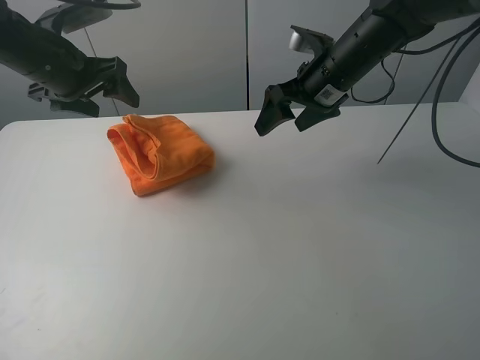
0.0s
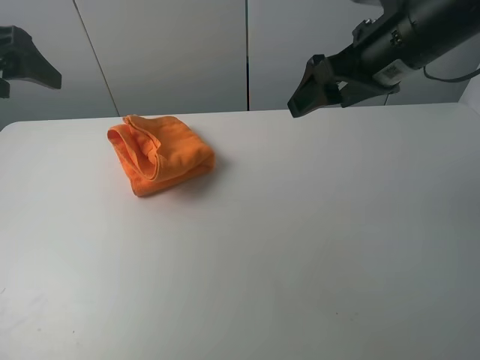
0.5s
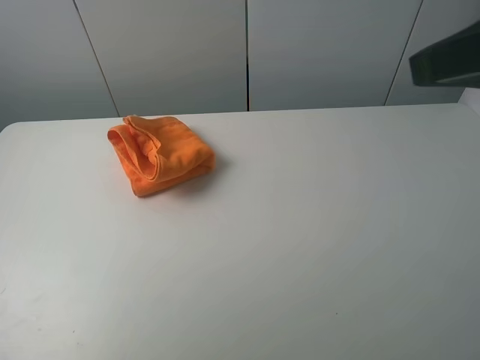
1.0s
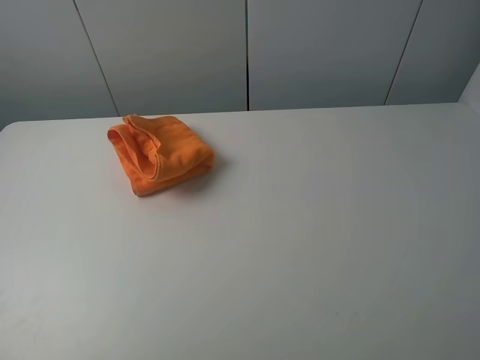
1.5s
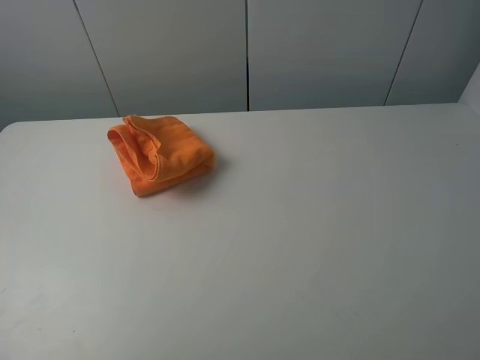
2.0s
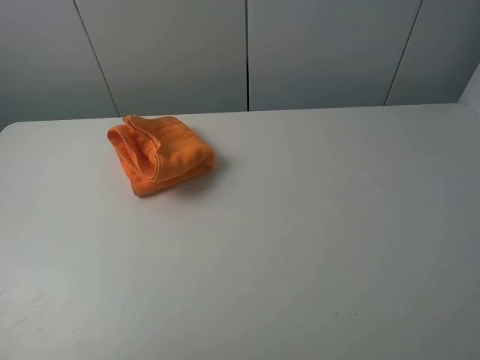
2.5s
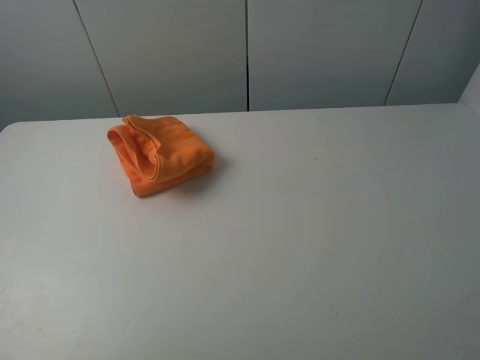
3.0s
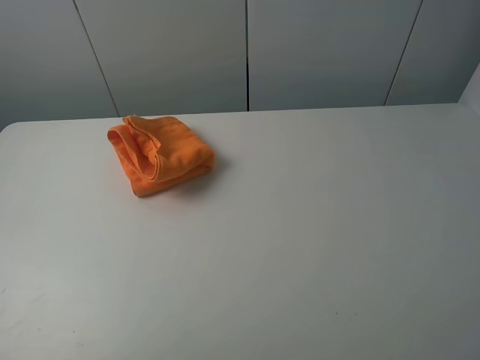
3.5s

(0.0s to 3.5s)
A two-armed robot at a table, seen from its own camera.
Task of the whole recording: fold the towels on the table.
0.0s - 2.0s: The right gripper heads backward and to the right, covering approximately 40 cm; the left gripper heads backward, covering roughly 35 cm.
